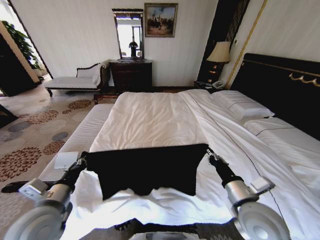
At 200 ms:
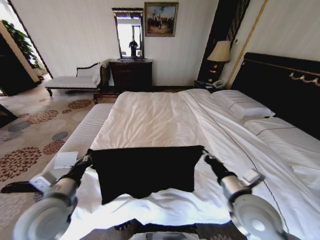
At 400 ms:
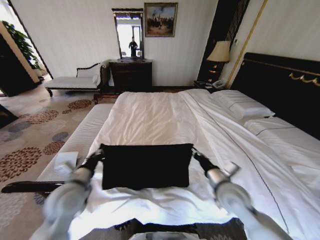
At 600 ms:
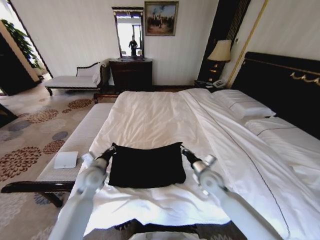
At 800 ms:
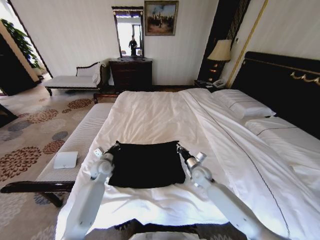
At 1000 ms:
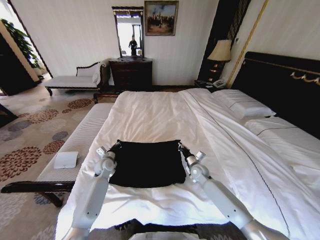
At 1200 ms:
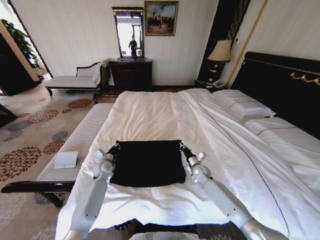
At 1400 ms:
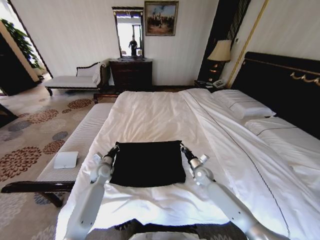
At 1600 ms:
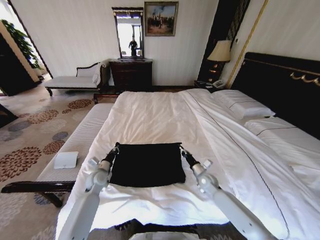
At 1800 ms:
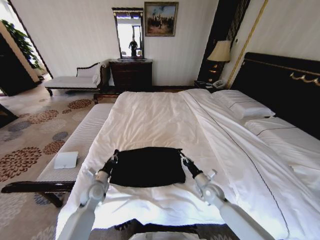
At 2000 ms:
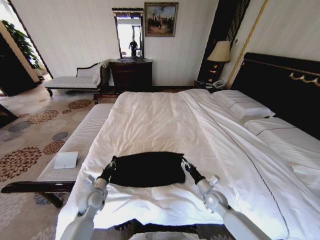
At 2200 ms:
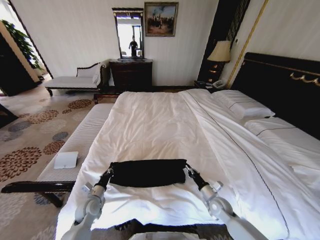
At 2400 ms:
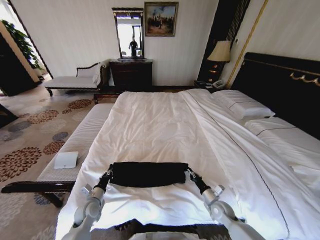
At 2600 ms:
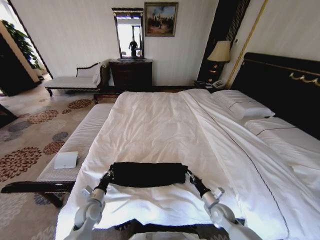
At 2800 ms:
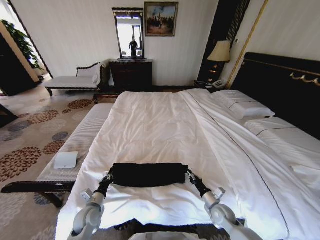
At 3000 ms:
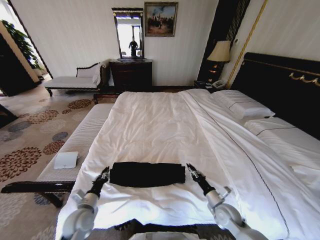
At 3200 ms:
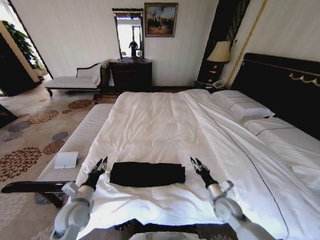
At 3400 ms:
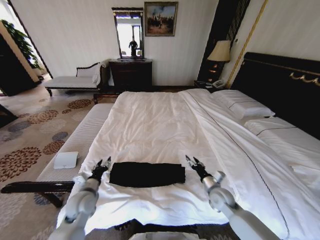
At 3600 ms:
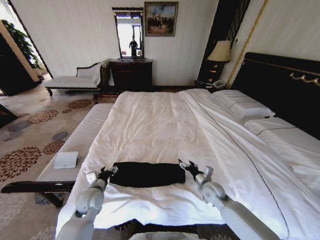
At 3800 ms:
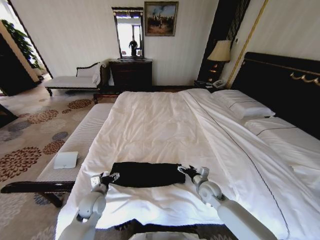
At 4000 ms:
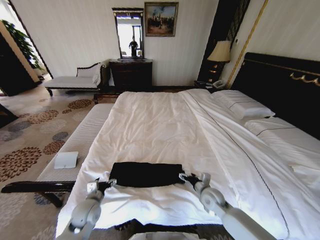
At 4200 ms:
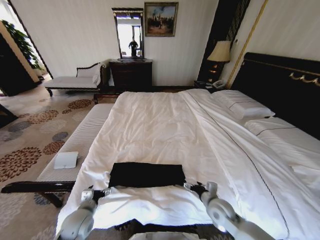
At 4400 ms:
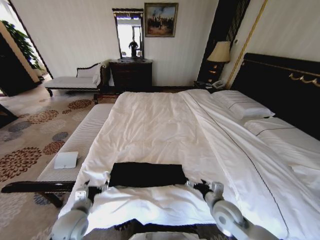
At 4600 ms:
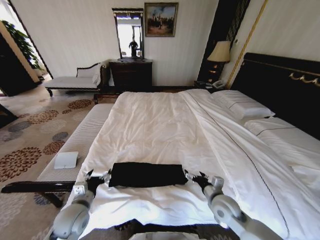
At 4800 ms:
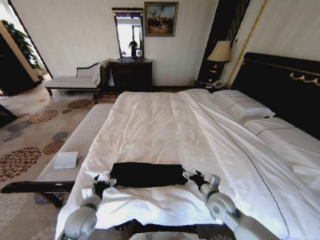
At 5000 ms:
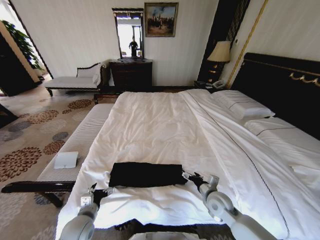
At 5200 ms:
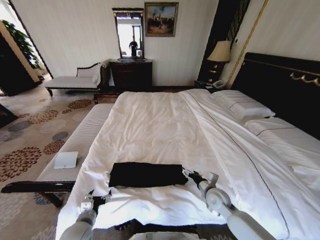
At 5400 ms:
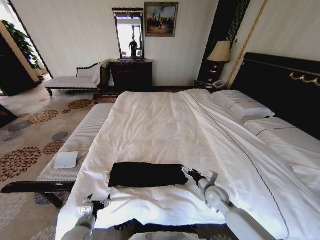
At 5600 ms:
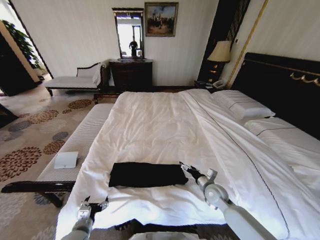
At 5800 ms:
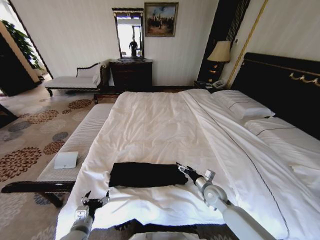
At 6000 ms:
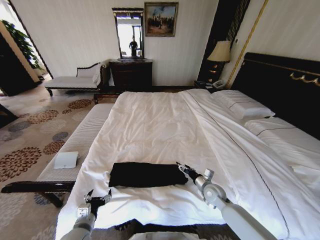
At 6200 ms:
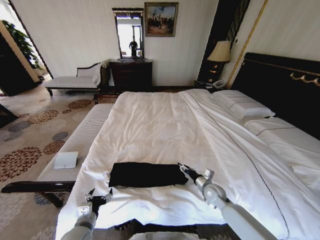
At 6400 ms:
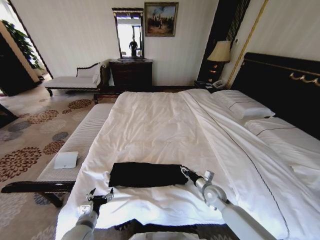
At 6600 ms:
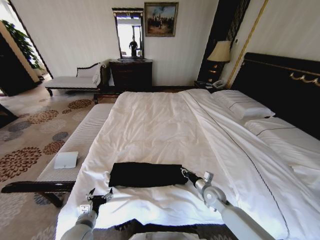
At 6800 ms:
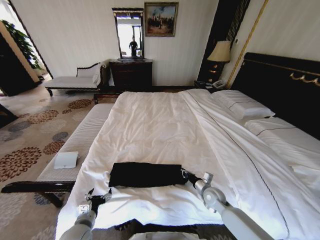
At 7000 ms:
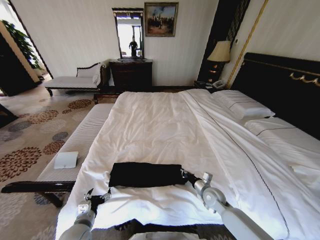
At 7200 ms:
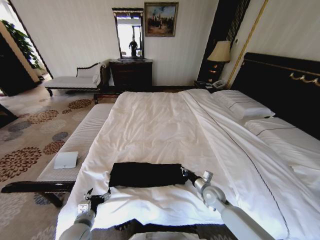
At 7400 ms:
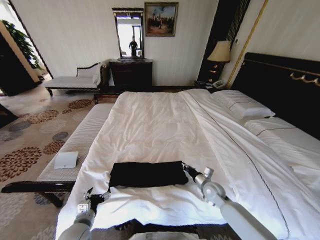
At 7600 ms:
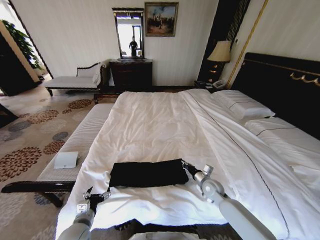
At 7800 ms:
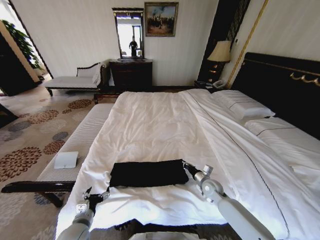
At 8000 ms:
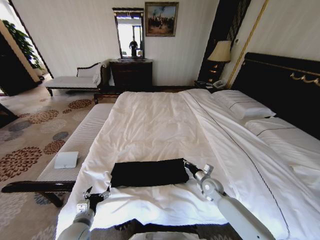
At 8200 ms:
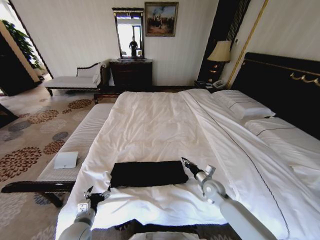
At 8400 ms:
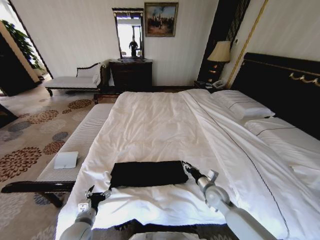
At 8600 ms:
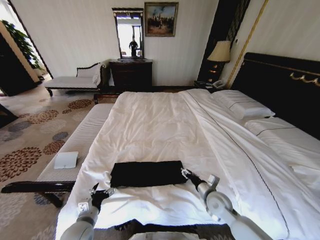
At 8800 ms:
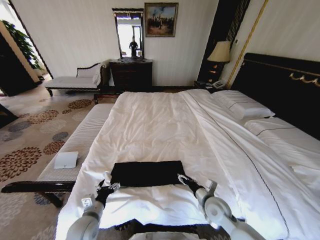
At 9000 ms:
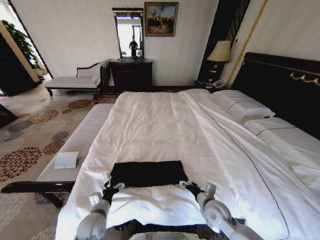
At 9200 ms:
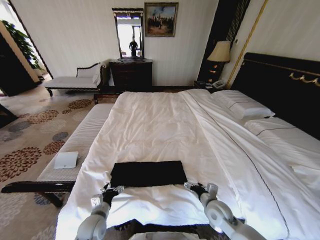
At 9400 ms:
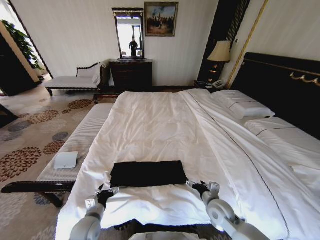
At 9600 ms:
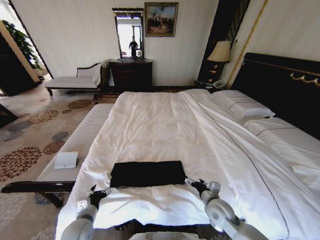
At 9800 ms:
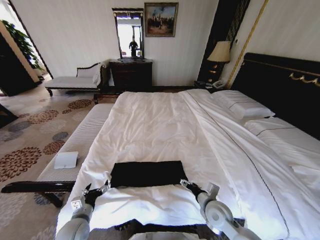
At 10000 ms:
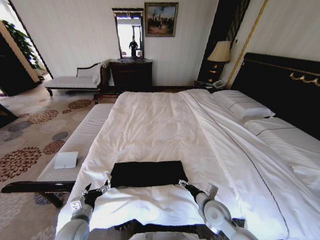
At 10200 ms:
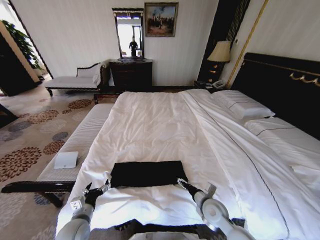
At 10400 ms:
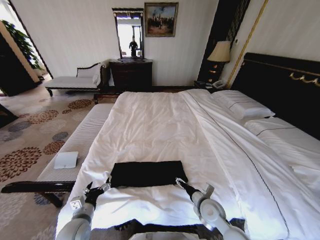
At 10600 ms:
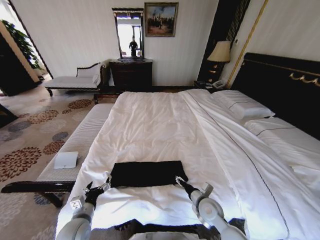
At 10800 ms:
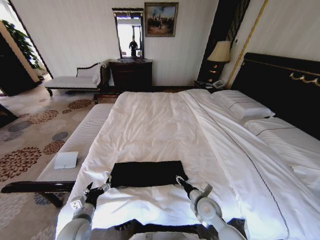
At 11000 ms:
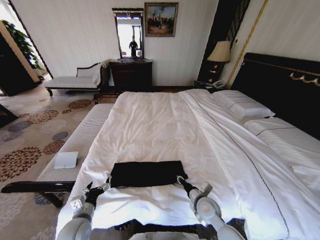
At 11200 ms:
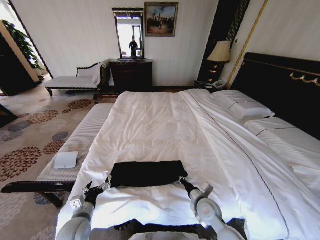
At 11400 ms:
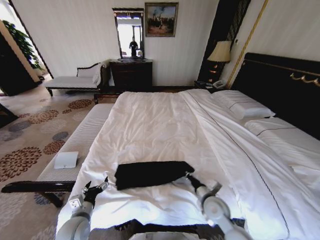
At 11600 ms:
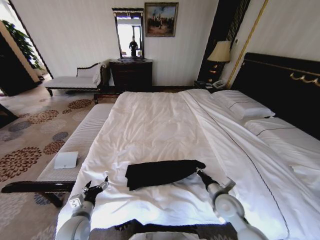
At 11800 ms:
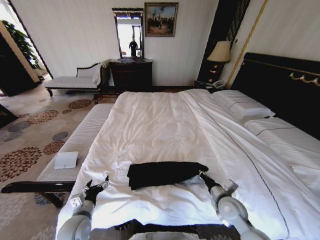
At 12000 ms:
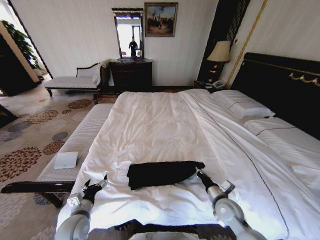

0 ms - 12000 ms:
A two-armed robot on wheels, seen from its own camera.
Task of the whole recording: Fold the clothes on the bed.
0 ms - 1600 ms: The right gripper is displaced downward and forward by about 30 cm; the left gripper shifts roughly 25 cm forward and downward.
1600 ms - 3000 ms: Both grippers move backward, roughly 15 cm.
3000 ms - 4400 ms: Both grippers travel together upward, approximately 5 cm. The left gripper reaches some 5 cm forward, then returns, and opens its fingers, while the right gripper moves roughly 10 cm forward and comes back, and opens.
4400 ms - 6000 ms: The right gripper shifts about 10 cm forward and downward; the left gripper ends up about 5 cm from where it was.
6000 ms - 7600 ms: The right gripper closes up.
7600 ms - 9000 ms: The right gripper heads backward, covering about 10 cm, and opens up, while the left gripper changes place by some 5 cm.
9000 ms - 10400 ms: The left gripper changes place by roughly 5 cm.
10400 ms - 12000 ms: The right gripper moves to the right, about 5 cm, and closes.

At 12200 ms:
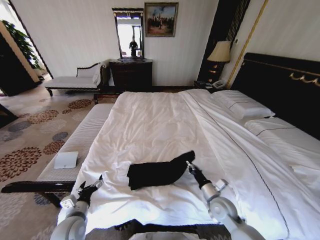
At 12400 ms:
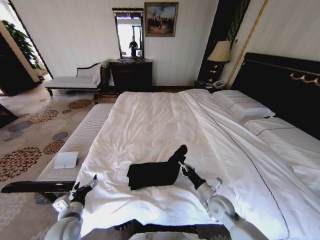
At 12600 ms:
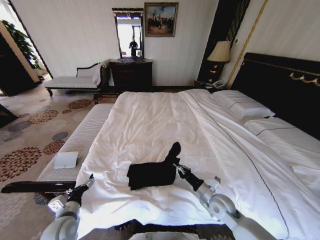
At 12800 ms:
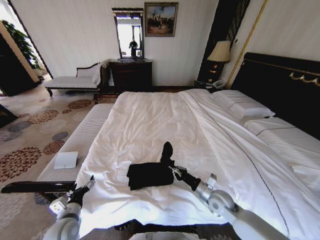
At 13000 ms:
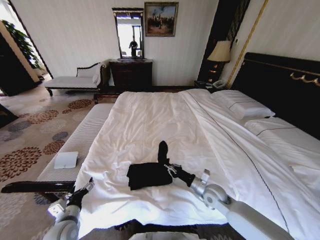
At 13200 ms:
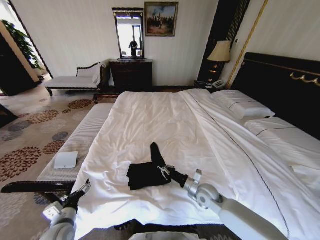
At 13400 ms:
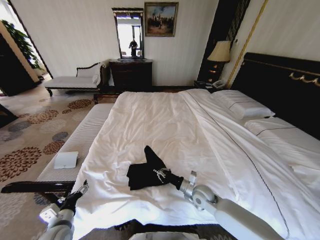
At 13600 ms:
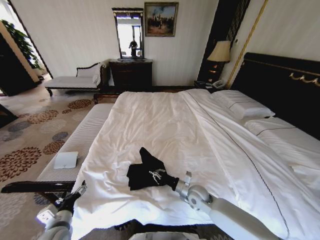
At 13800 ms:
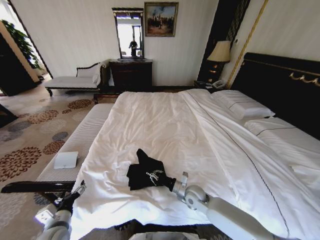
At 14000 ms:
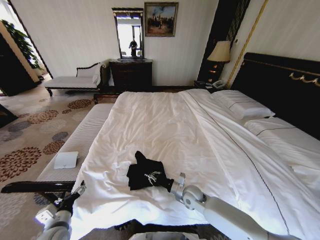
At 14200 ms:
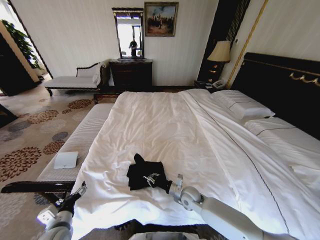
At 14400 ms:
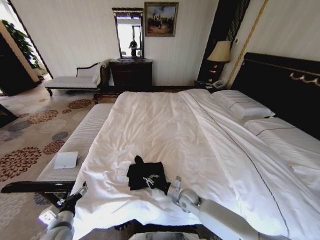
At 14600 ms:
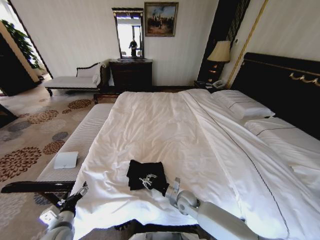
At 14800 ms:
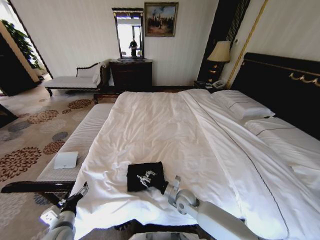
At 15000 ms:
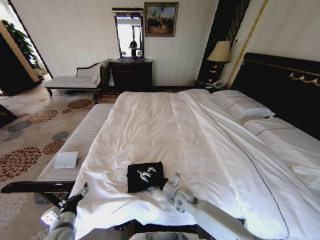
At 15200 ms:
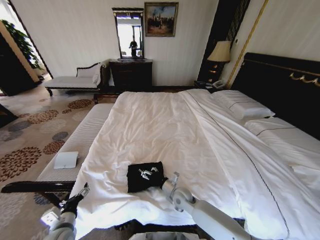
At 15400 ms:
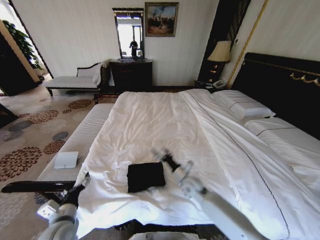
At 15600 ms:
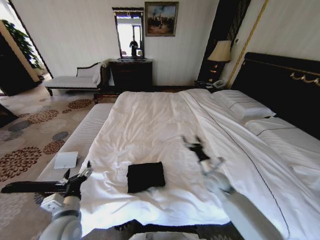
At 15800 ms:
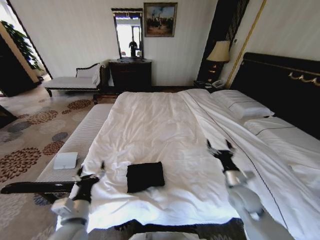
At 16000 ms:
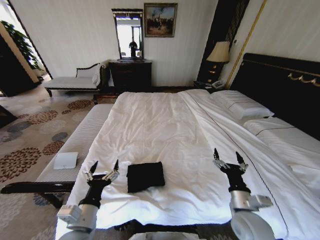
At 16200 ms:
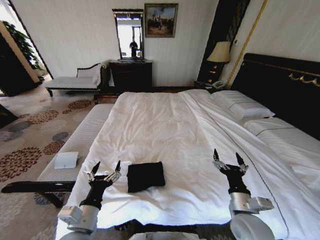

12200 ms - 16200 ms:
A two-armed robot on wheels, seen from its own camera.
Task of the whole recording: Fold the clothes on the bed.
12200 ms - 13600 ms: The right gripper is displaced to the left and forward by about 10 cm.
13600 ms - 14800 ms: The right gripper travels to the left by some 5 cm, and opens.
14800 ms - 16200 ms: The left gripper moves to the right and upward, about 15 cm; the right gripper shifts roughly 25 cm to the right, upward and backward, and opens its fingers.
